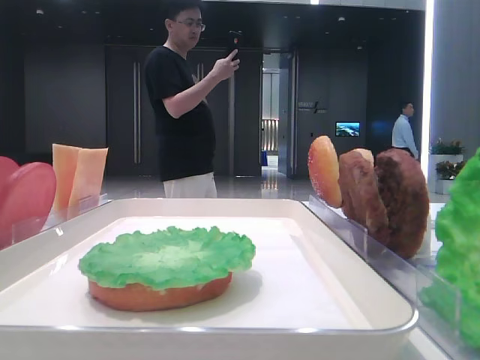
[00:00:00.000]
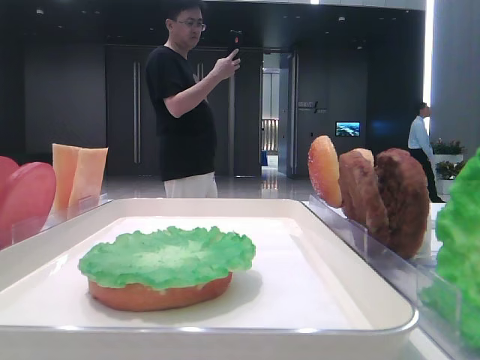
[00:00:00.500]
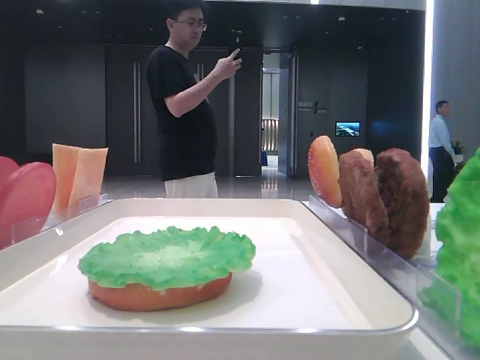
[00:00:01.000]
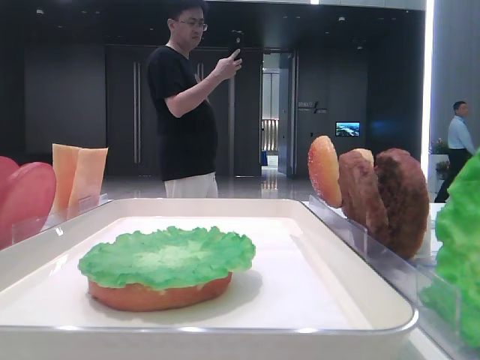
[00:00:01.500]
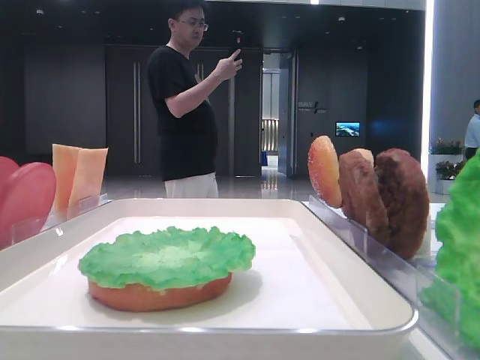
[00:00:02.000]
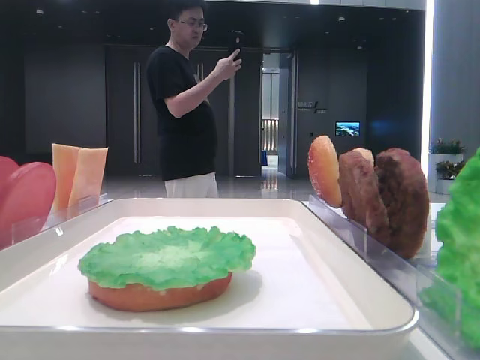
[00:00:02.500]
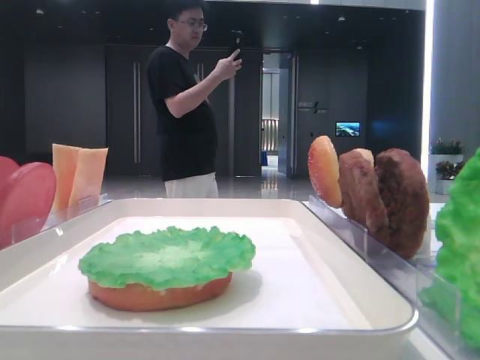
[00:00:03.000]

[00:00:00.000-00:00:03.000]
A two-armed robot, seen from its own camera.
00:00:00.000 to 00:00:01.500: The right gripper goes about 5 cm downward.

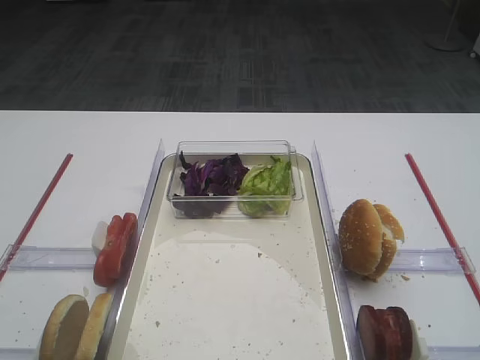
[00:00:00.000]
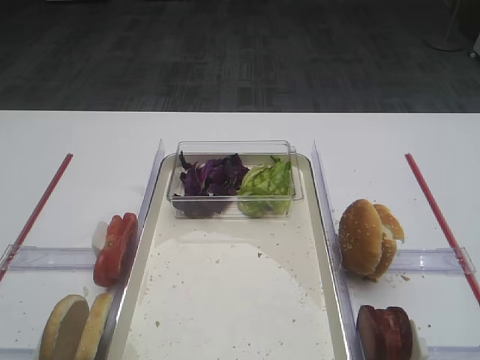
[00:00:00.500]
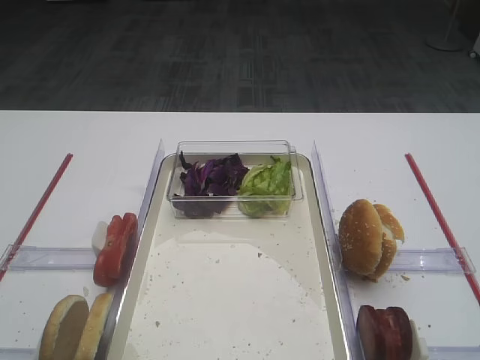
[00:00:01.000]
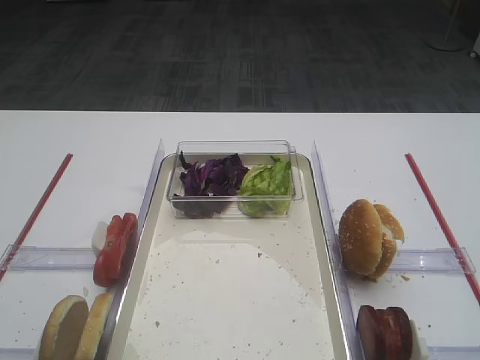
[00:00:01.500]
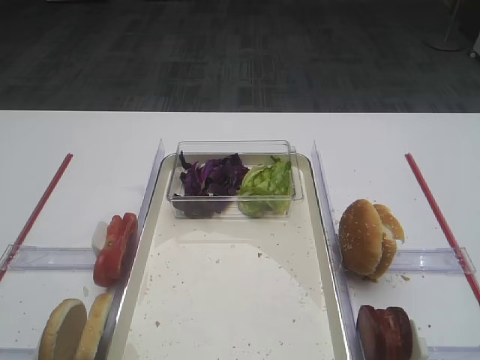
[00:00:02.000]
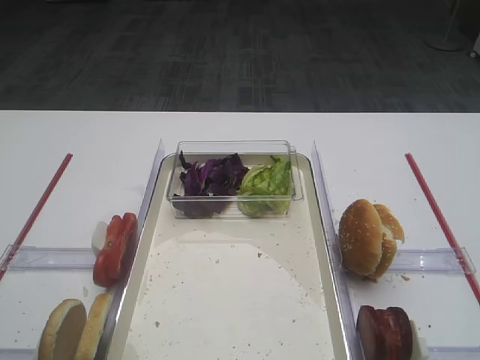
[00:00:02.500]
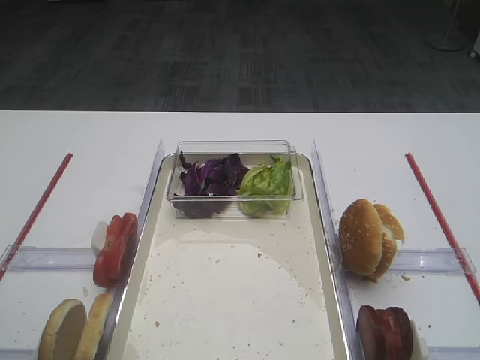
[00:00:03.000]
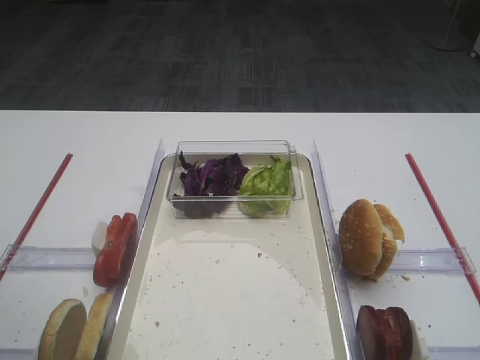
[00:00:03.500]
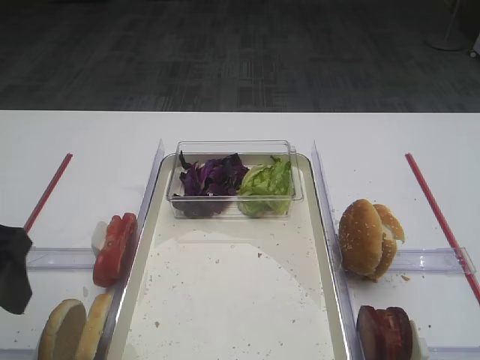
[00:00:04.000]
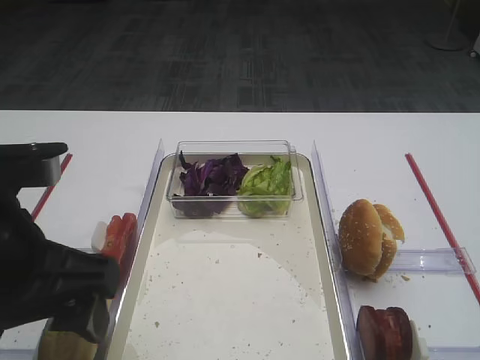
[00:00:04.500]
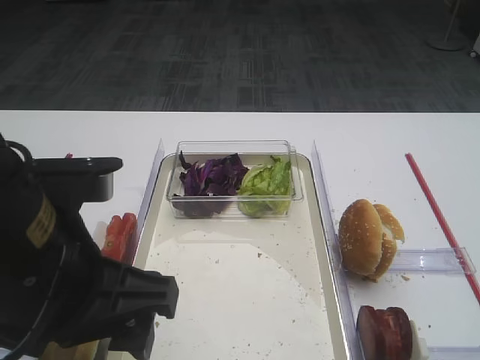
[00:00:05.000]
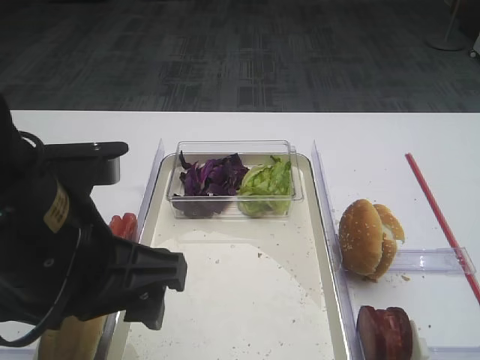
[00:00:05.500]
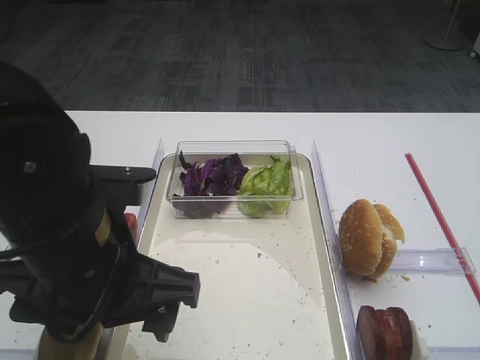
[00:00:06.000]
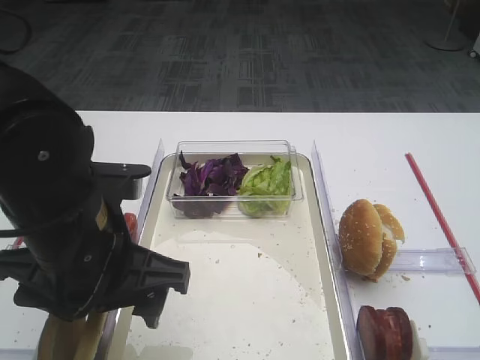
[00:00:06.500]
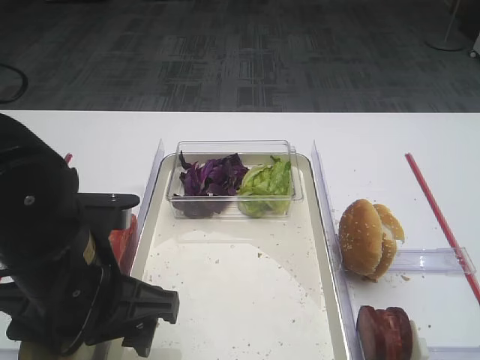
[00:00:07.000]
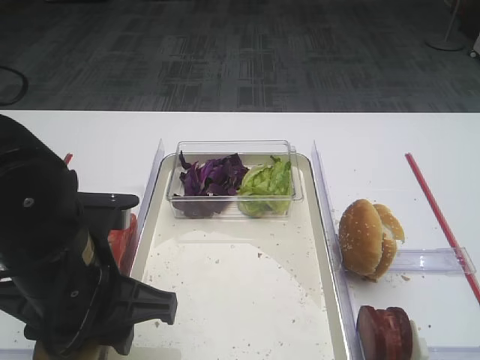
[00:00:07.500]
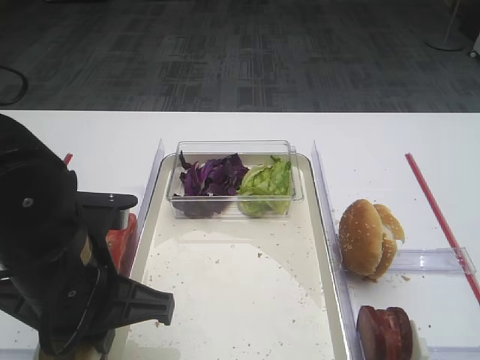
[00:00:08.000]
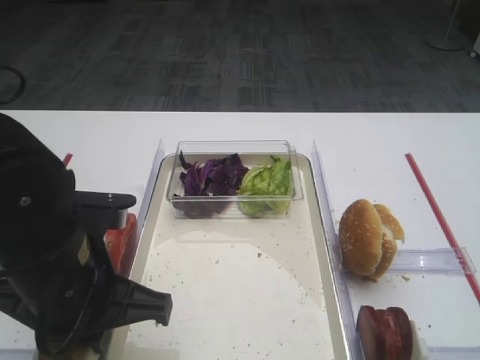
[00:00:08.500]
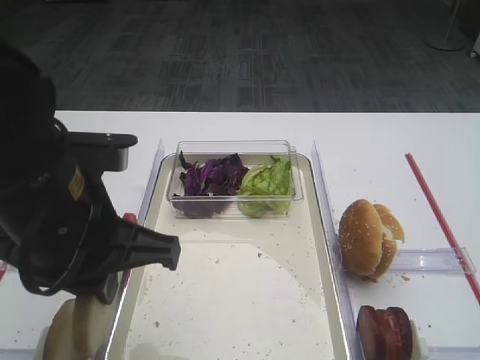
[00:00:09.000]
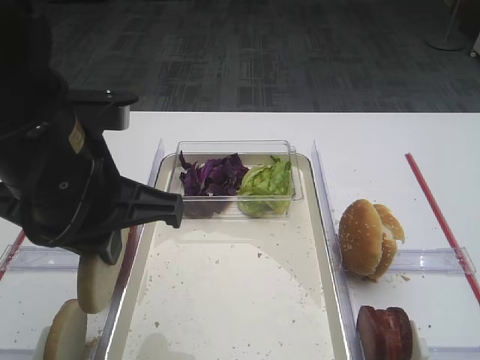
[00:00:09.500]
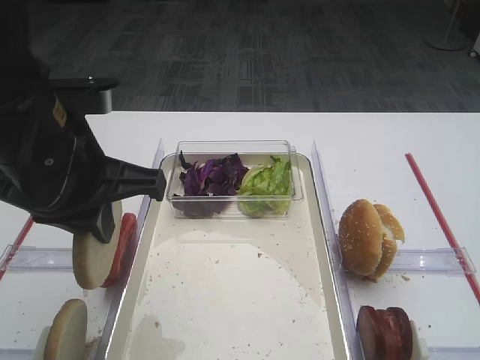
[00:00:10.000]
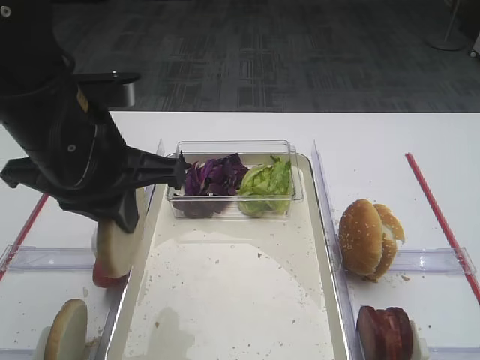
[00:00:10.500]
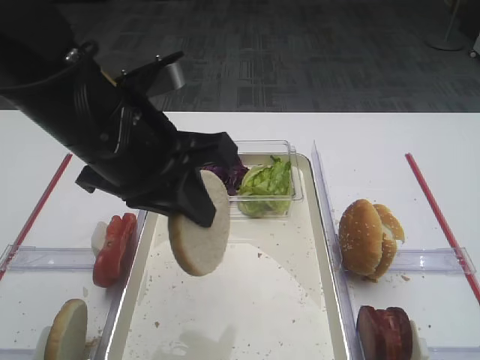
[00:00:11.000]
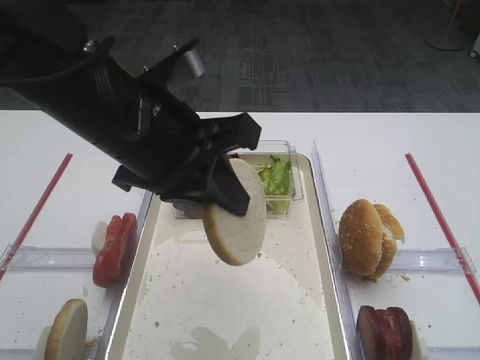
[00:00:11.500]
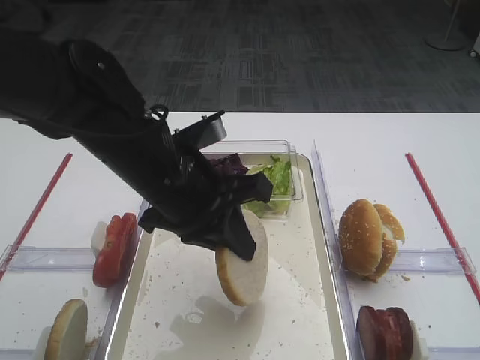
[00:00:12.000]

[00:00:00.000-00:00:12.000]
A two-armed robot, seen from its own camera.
Step, 00:00:00.000 to 00:00:09.000: Pick up the bread slice with the left gripper.
00:00:02.000 to 00:00:04.000: The left gripper travels forward by some 15 cm.
00:00:04.000 to 00:00:06.000: The left gripper heads to the right, covering about 15 cm.
00:00:06.000 to 00:00:08.000: The left gripper closes up.
00:00:08.000 to 00:00:10.000: The left gripper moves upward, some 10 cm.
00:00:10.000 to 00:00:12.000: The left gripper is displaced to the right and downward by approximately 10 cm.

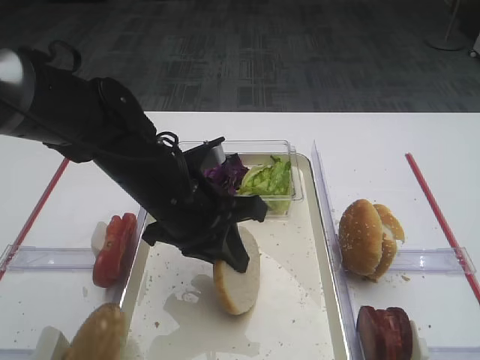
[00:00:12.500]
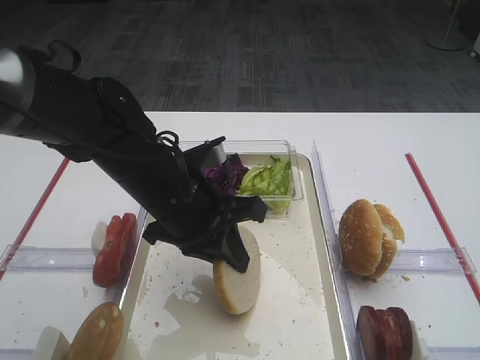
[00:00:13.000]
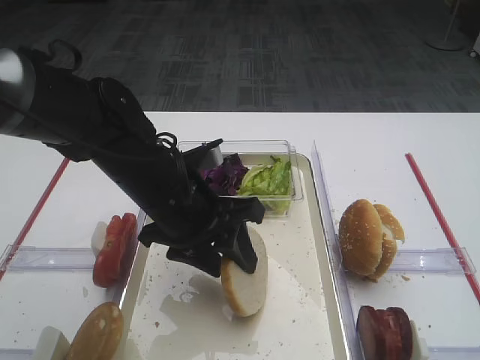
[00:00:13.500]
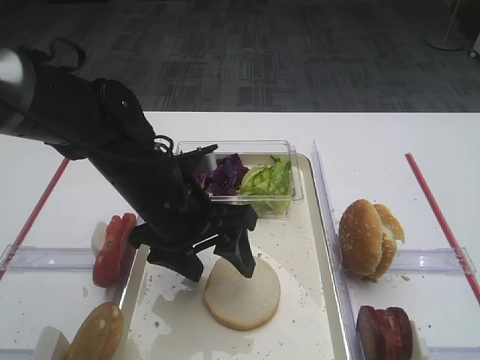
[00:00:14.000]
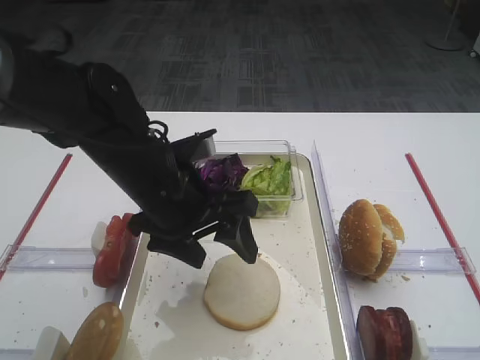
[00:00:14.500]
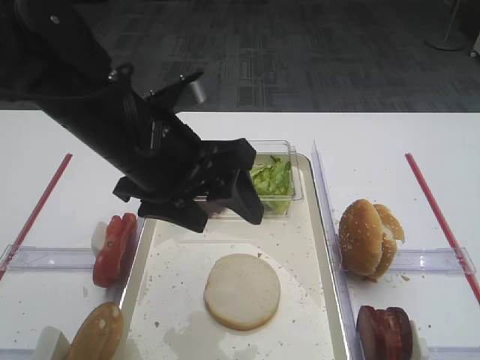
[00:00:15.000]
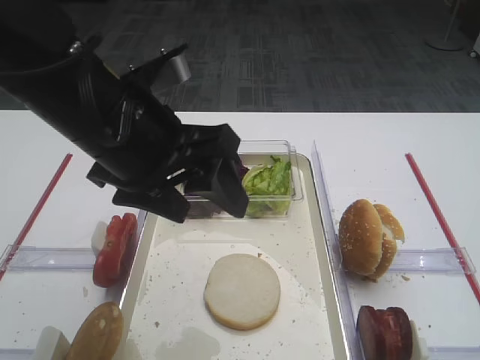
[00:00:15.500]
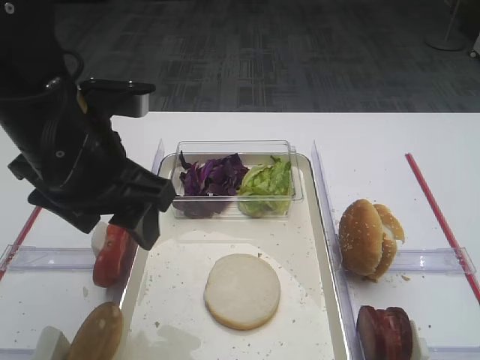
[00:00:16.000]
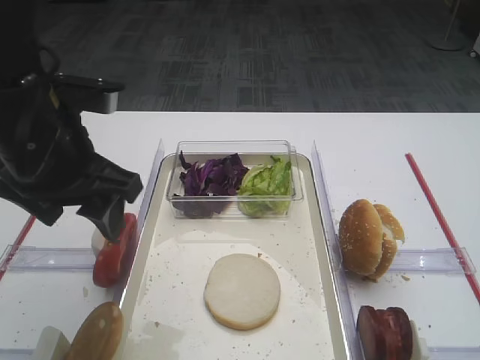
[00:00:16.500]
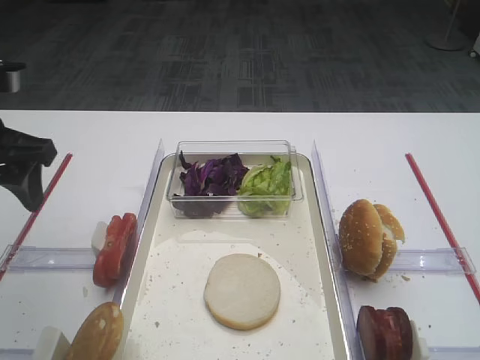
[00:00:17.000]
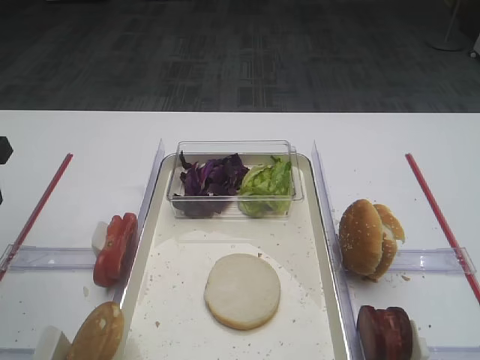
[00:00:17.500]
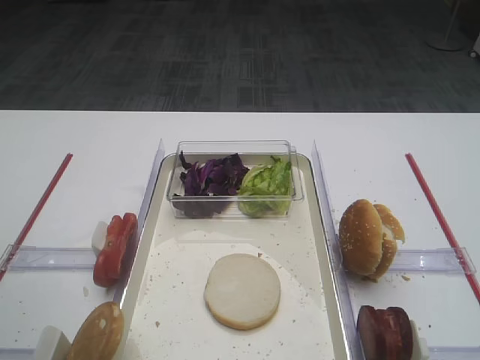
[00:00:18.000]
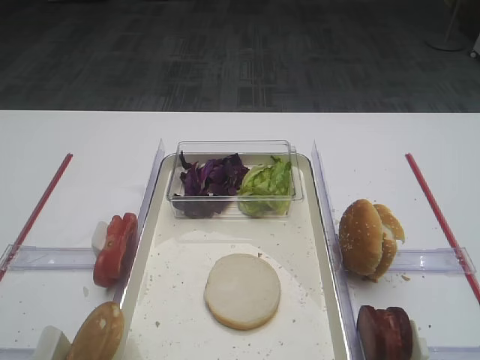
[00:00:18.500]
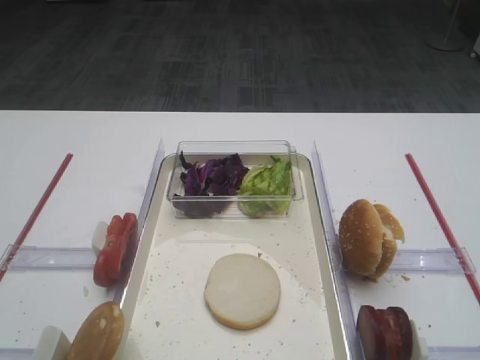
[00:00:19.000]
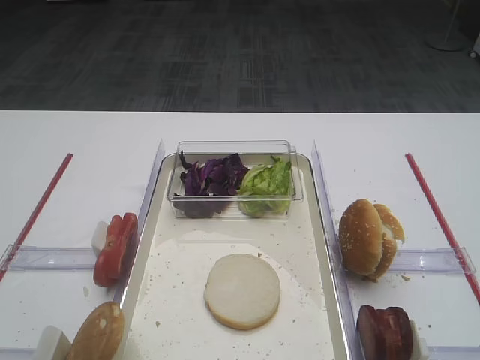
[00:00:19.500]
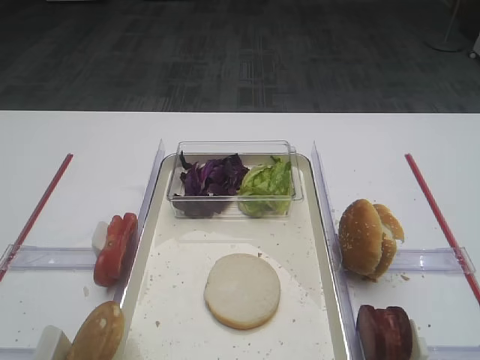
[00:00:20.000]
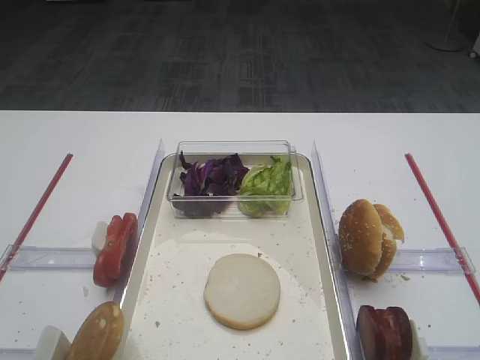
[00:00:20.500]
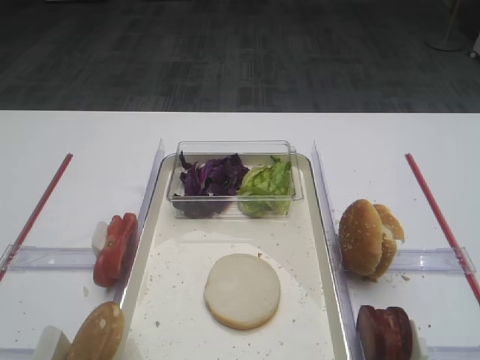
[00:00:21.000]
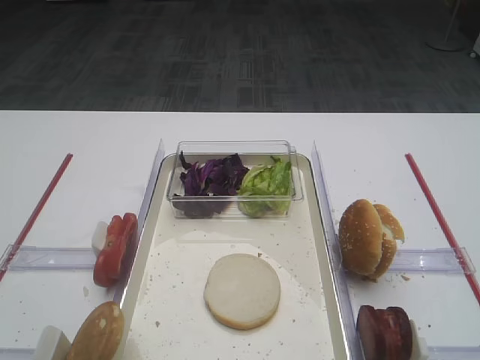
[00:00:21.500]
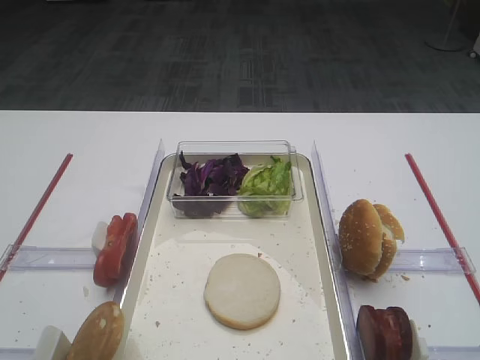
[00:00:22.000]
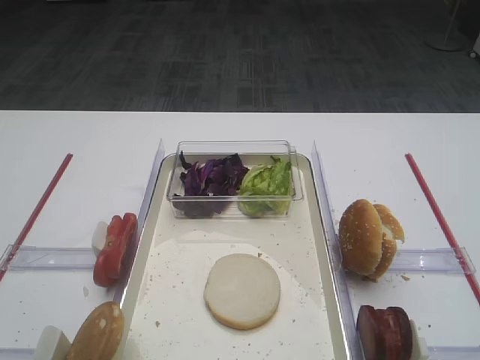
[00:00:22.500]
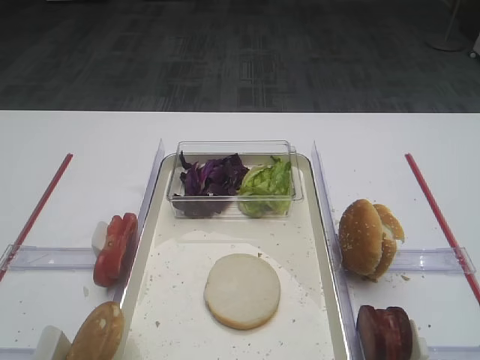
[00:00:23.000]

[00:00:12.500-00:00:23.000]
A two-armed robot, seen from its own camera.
Step, 00:00:12.500 to 00:00:14.500: Place the bread slice on the tray with the left gripper.
00:00:12.500 to 00:00:14.500: The left gripper opens its fingers.
00:00:14.500 to 00:00:16.500: The left gripper heads to the left and upward, covering approximately 10 cm.
00:00:16.500 to 00:00:19.000: The left gripper is displaced backward and to the left by approximately 25 cm.
00:00:21.000 to 00:00:23.000: Neither gripper changes place.
